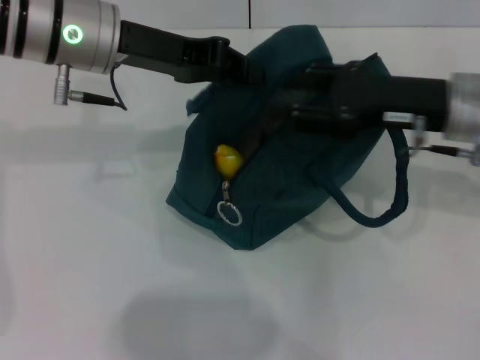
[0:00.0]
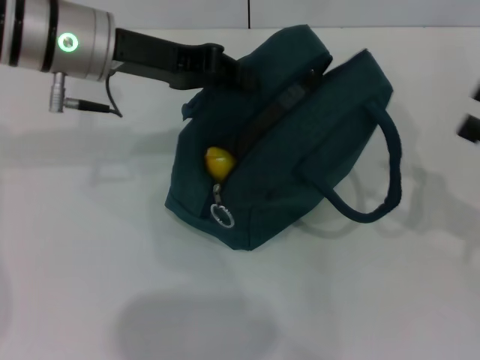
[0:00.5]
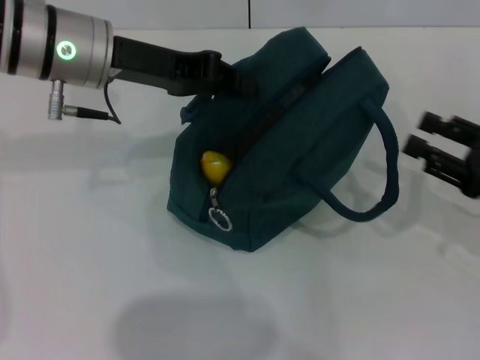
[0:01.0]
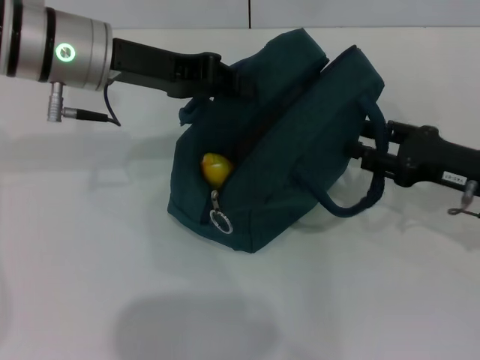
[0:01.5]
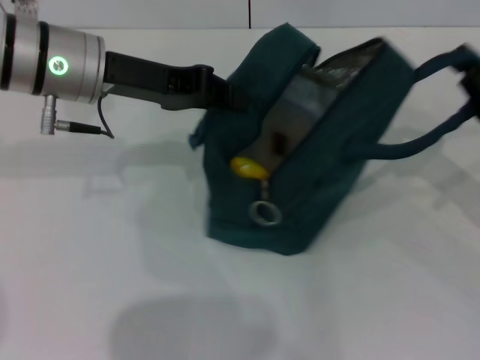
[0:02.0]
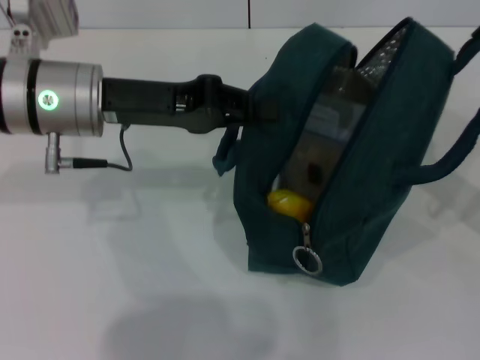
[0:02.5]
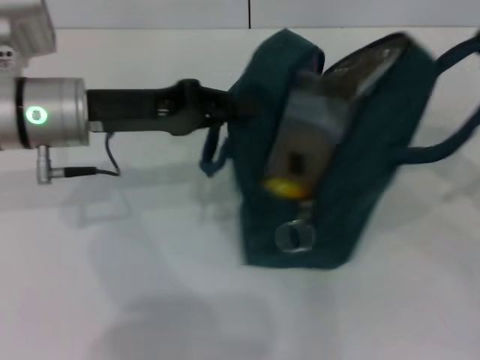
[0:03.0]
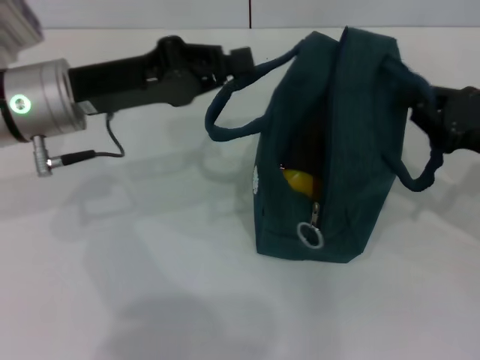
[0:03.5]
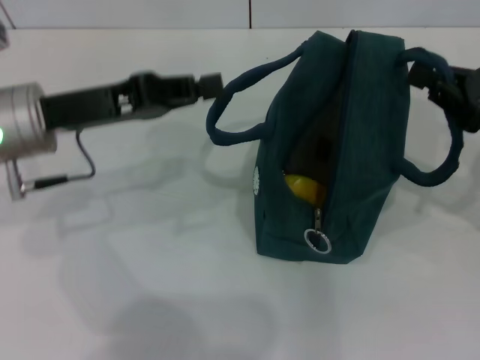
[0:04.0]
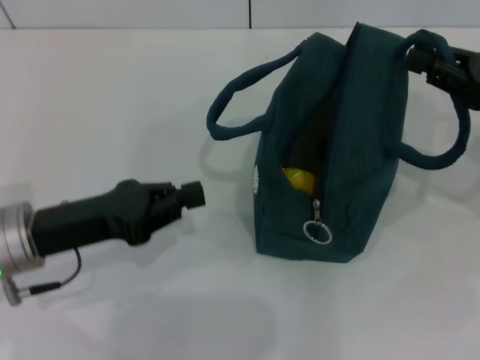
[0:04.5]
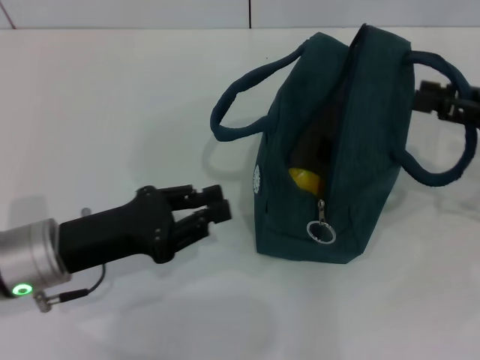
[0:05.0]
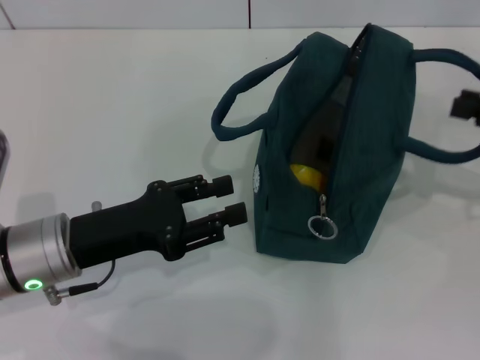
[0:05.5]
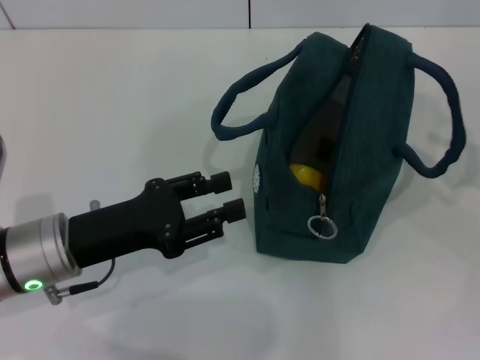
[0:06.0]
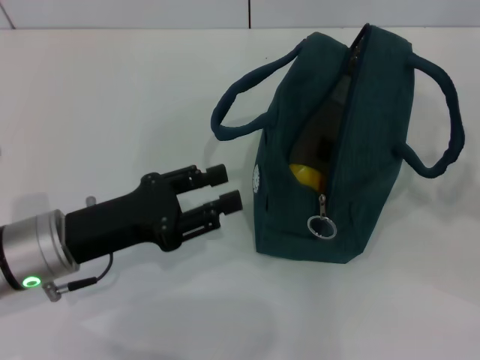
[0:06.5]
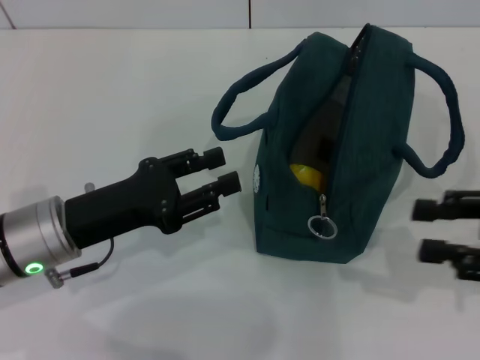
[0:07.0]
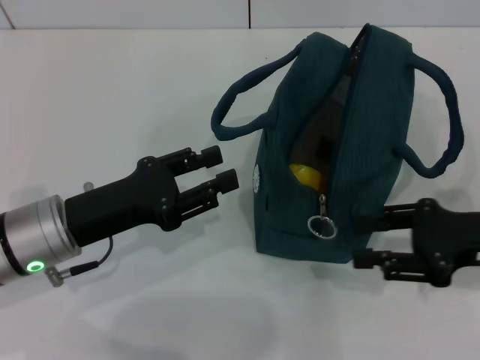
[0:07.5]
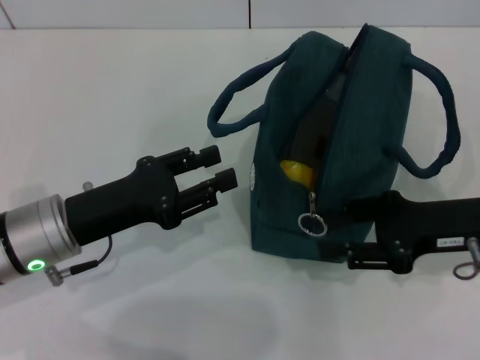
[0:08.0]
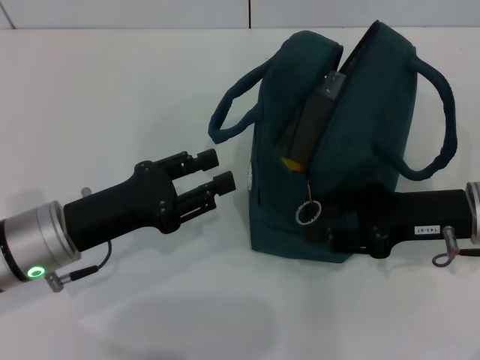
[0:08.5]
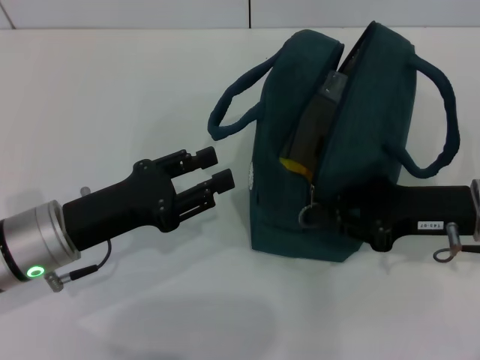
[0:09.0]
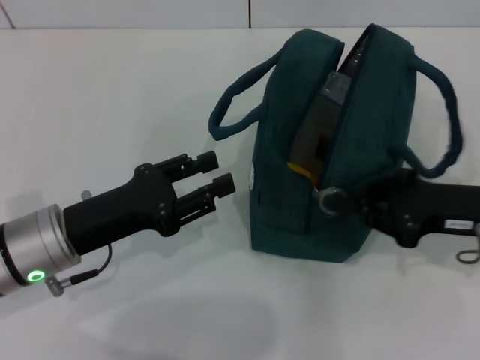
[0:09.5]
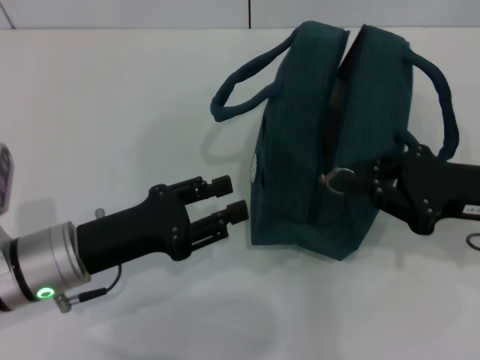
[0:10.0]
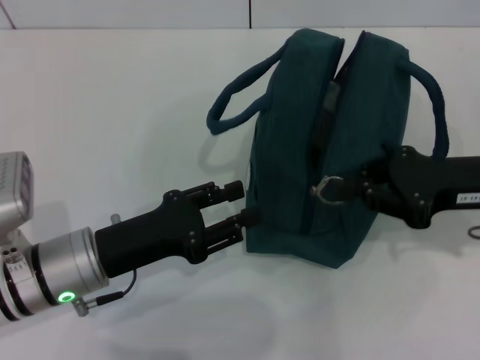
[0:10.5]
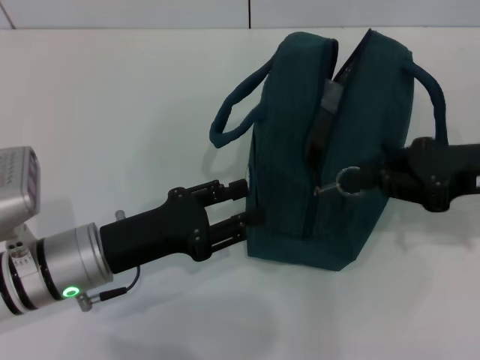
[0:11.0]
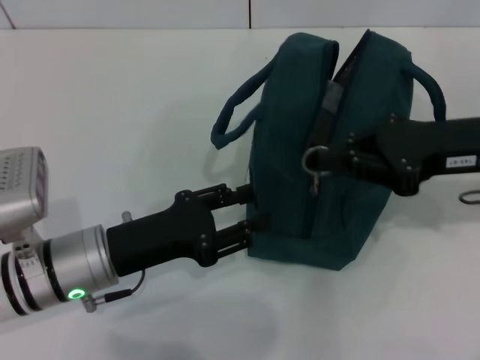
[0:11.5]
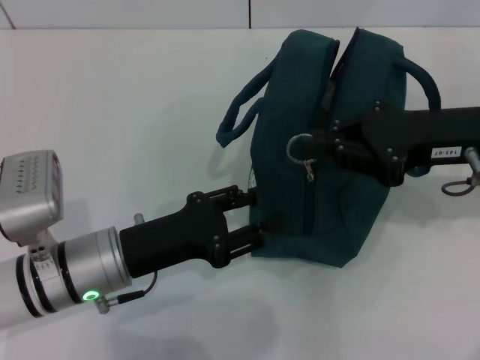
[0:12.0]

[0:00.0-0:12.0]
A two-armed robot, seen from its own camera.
Step, 0:00.0 to 0:03.0: Hold the lunch bag with your left hand.
Step, 0:03.5 to 0:05.5: Hold the lunch bag with your right hand.
0:00.0 to 0:02.0: The right gripper moves left and right over about 15 cm, changing direction 2 times, and closes up.
0:02.0 to 0:04.0: The left gripper shifts by some 10 cm.
0:04.0 to 0:06.0: The left gripper is displaced downward and backward by approximately 10 cm, and opens up. Meanwhile the right gripper moves to the right, approximately 10 cm, and opens up.
0:06.0 to 0:08.0: The right gripper goes roughly 15 cm to the left.
0:08.0 to 0:10.0: The right gripper closes its fingers.
0:10.0 to 0:12.0: The right gripper changes place by approximately 5 cm.

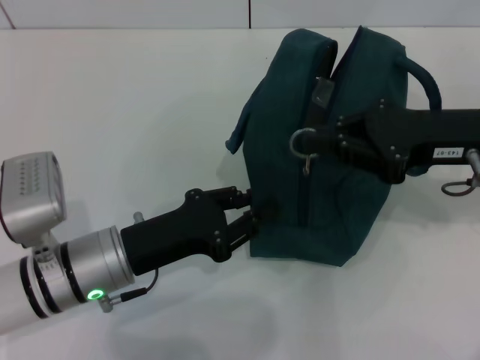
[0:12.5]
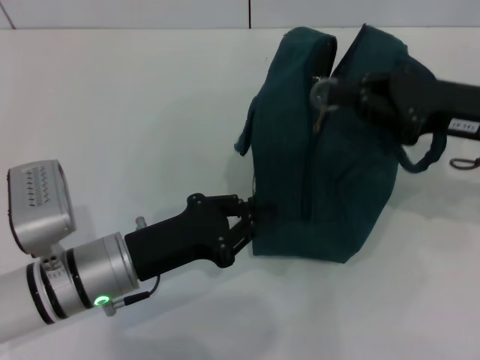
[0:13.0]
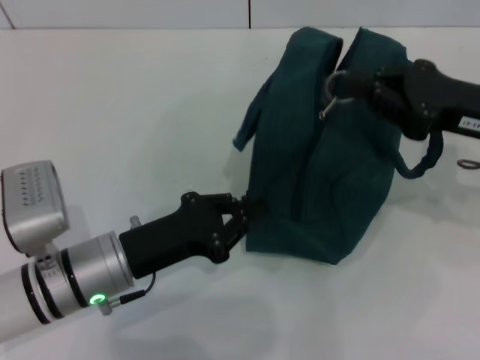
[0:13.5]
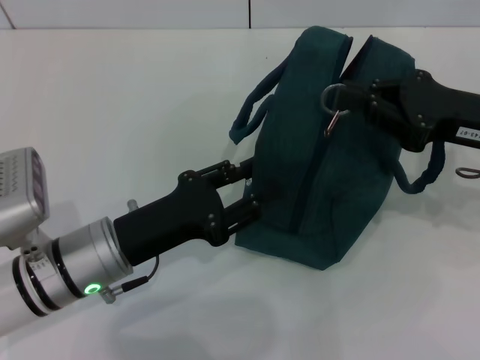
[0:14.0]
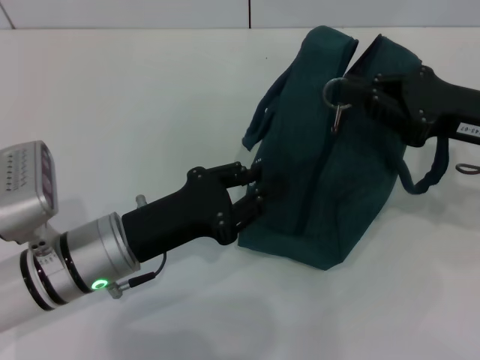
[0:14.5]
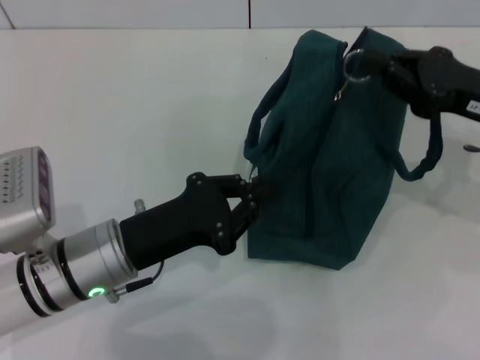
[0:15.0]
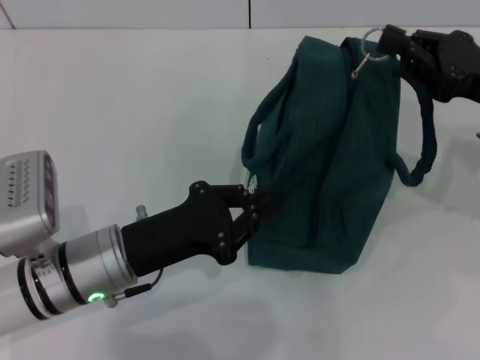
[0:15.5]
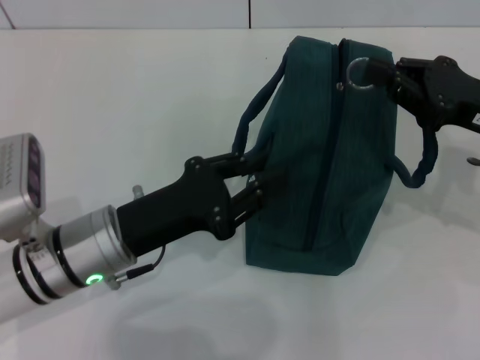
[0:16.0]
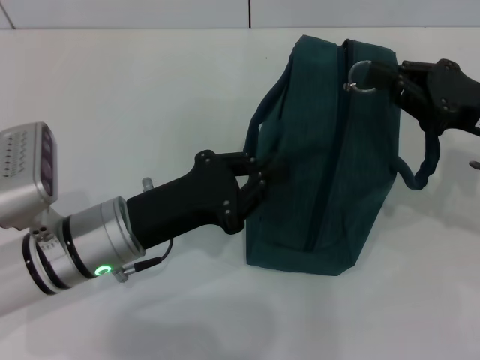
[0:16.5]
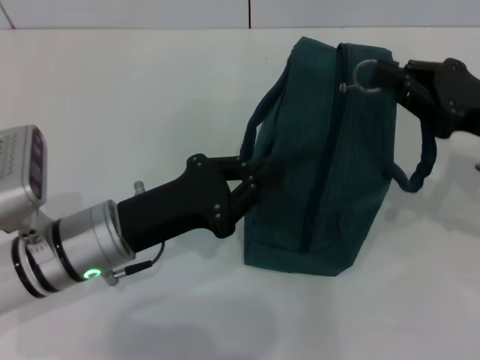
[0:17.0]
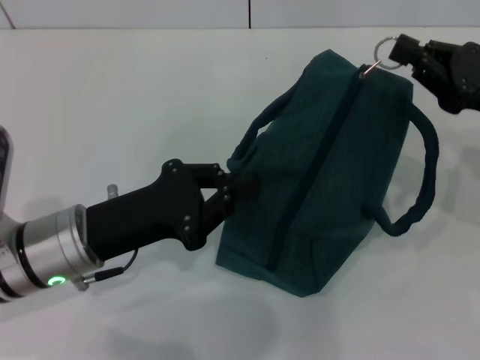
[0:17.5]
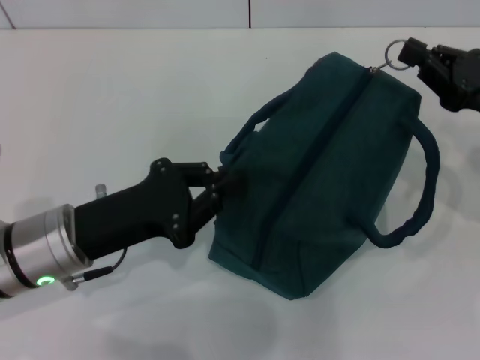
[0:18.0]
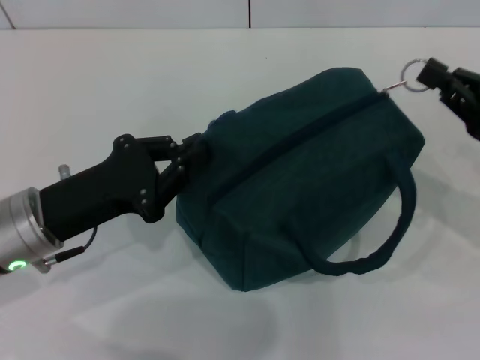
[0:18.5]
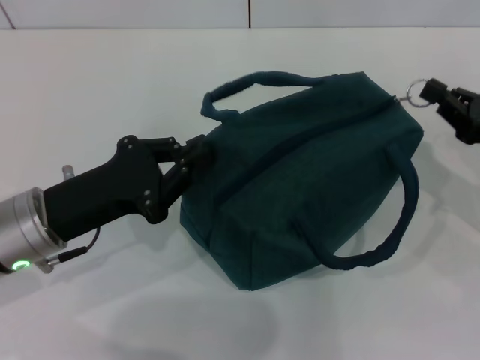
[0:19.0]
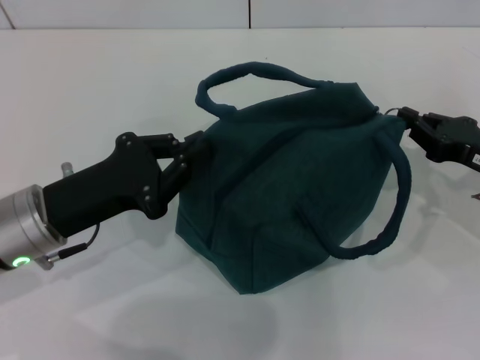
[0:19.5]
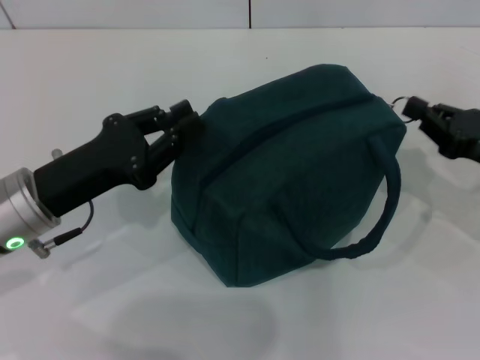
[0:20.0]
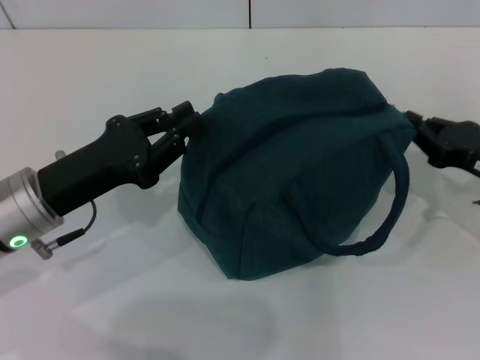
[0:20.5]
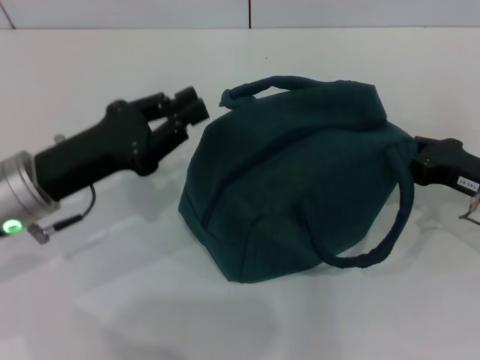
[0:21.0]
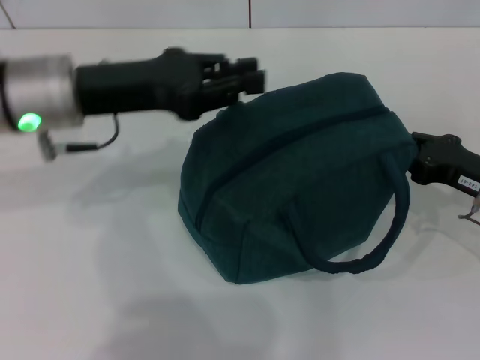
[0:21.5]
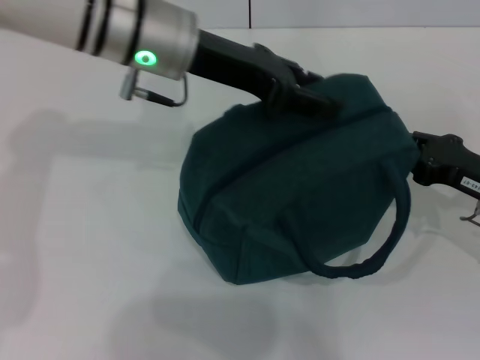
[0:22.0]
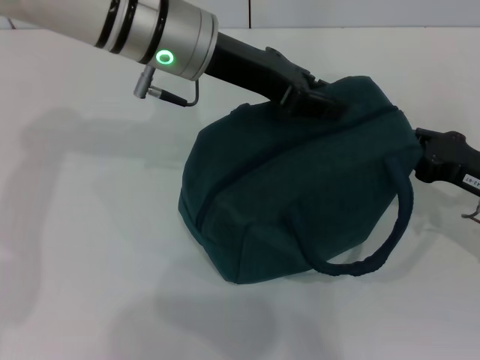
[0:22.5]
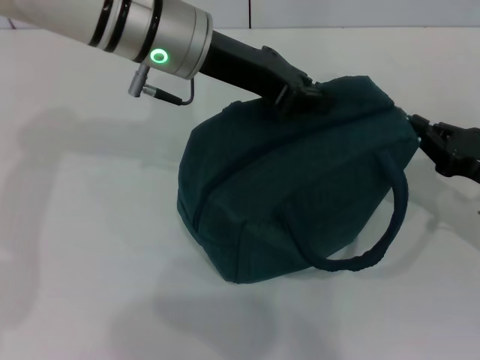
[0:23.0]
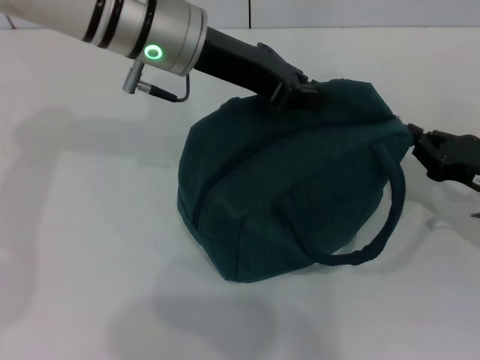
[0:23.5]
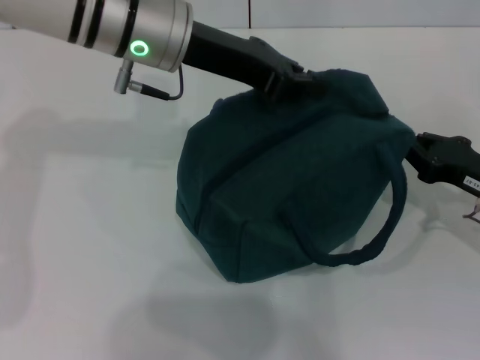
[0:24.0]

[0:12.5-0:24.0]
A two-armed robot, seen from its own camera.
0:12.5 to 0:14.5: The left gripper closes and opens again.
0:14.5 to 0:16.5: The grippers stay close to where they were, moving slightly.
0:16.5 to 0:18.5: The left gripper shifts roughly 5 cm to the left.
0:20.0 to 0:22.0: The left gripper travels to the right, forward and upward by about 20 cm, and opens.
0:22.0 to 0:24.0: The left gripper closes up.

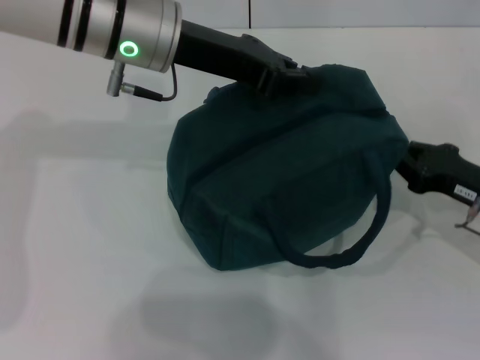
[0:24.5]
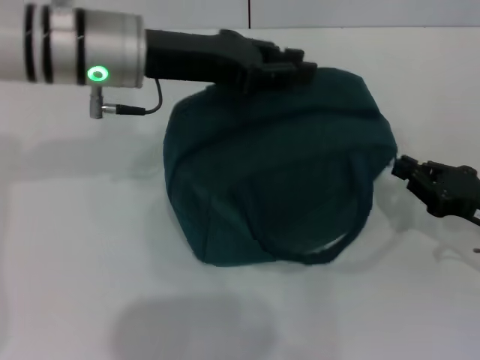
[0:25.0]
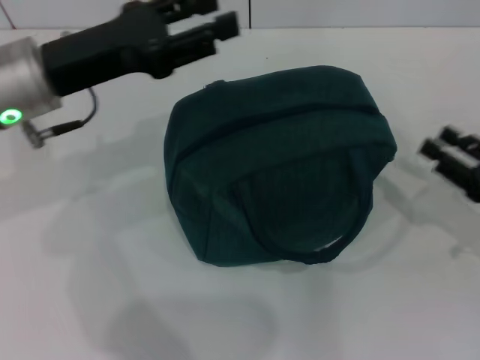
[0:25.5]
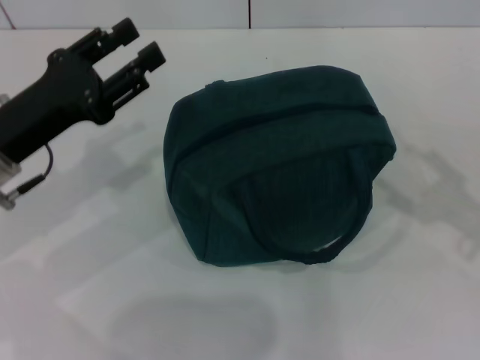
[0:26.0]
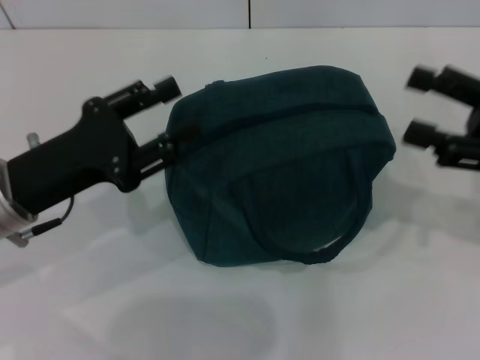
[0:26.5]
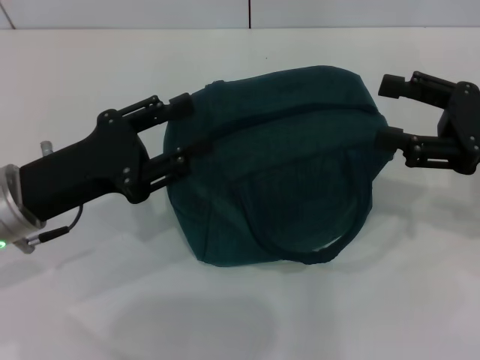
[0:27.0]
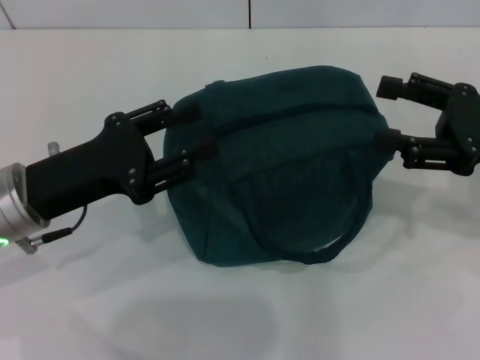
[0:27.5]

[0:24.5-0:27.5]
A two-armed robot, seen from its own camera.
0:24.5 to 0:26.0: The right gripper heads backward and to the right, covering approximately 10 cm, and opens up. The left gripper travels to the left, backward and downward by some 20 cm, and opens up.
0:26.0 to 0:27.5: The right gripper goes approximately 10 cm forward, to the left and upward.
